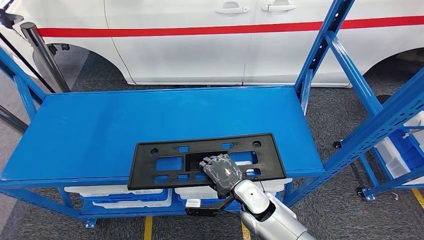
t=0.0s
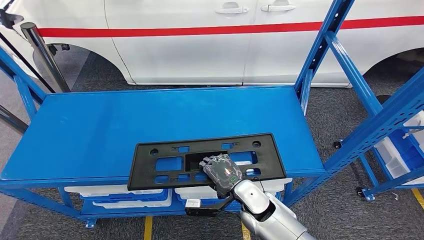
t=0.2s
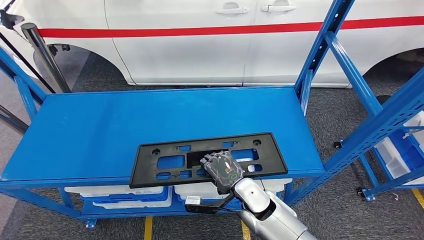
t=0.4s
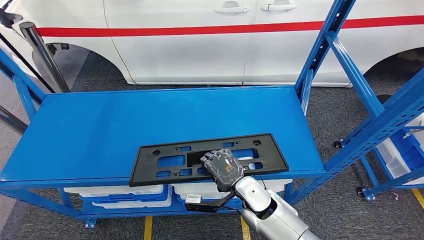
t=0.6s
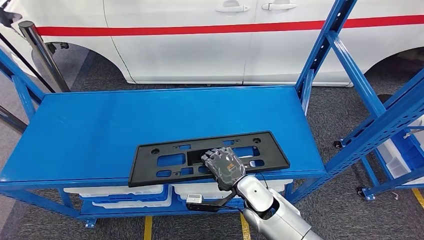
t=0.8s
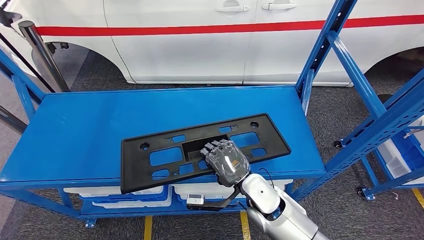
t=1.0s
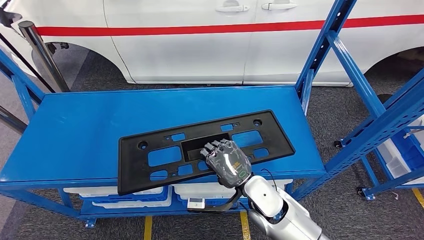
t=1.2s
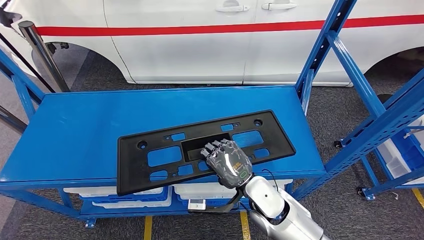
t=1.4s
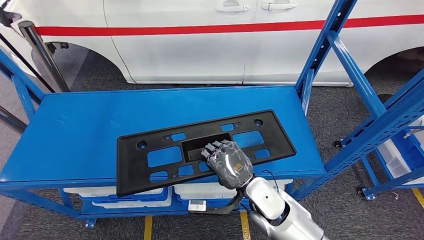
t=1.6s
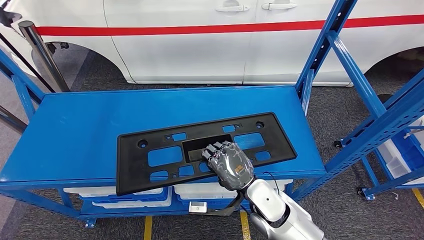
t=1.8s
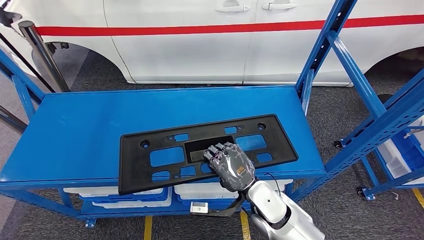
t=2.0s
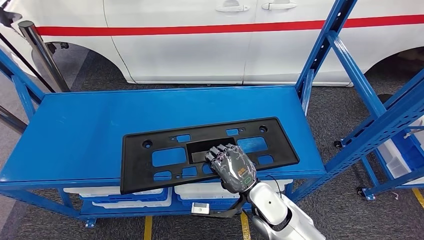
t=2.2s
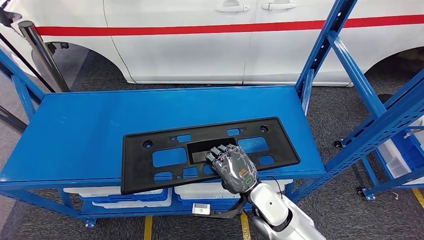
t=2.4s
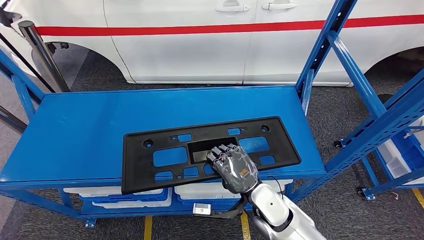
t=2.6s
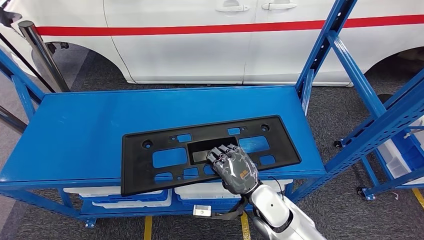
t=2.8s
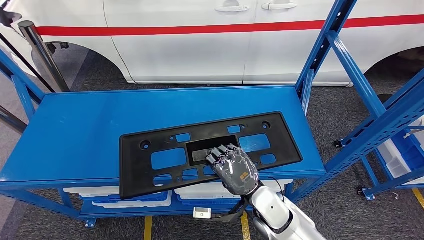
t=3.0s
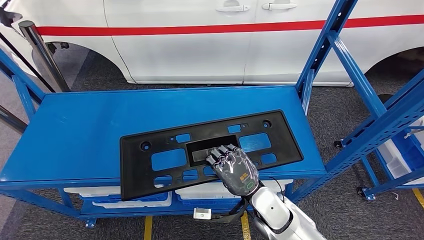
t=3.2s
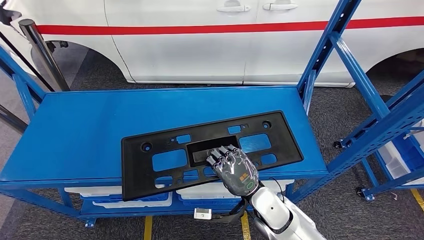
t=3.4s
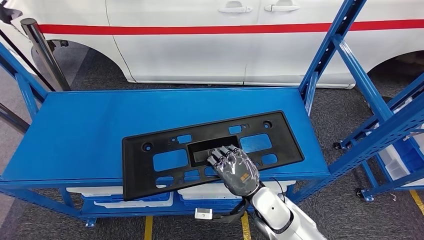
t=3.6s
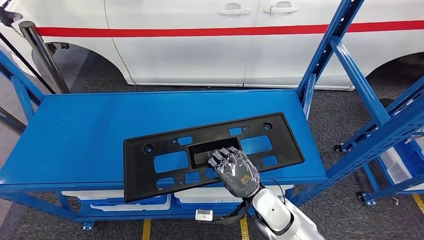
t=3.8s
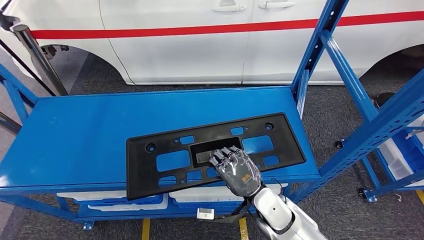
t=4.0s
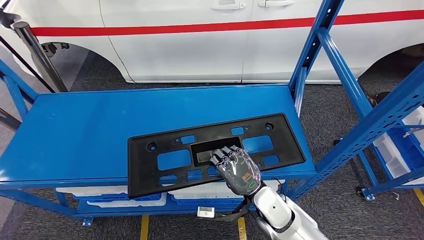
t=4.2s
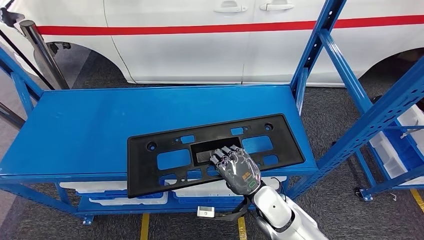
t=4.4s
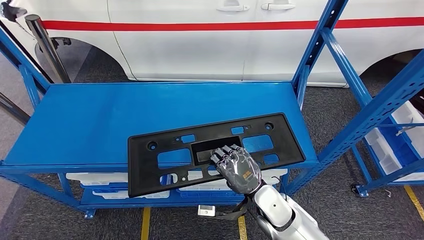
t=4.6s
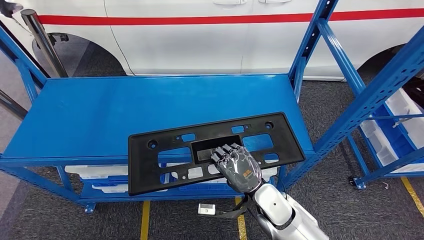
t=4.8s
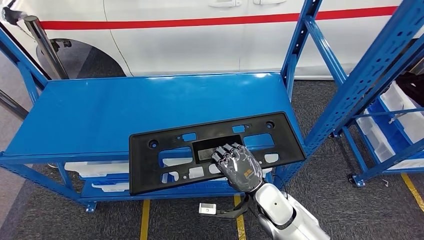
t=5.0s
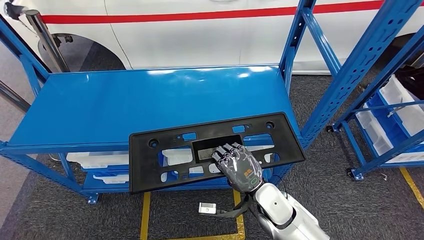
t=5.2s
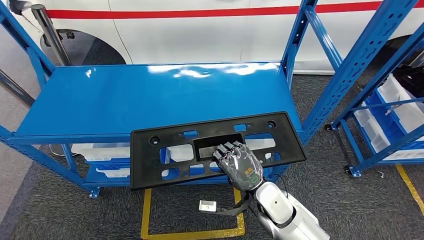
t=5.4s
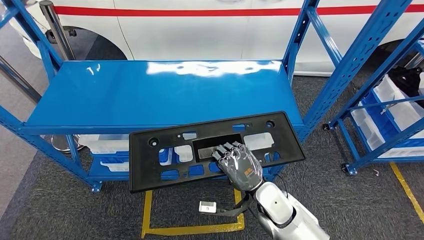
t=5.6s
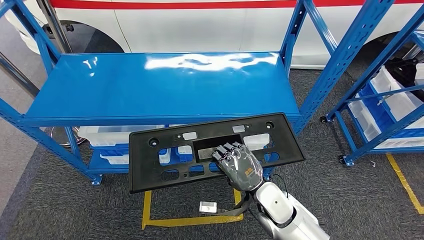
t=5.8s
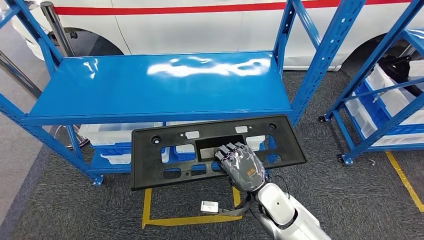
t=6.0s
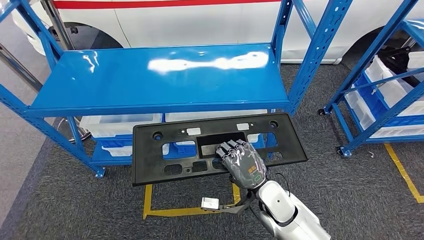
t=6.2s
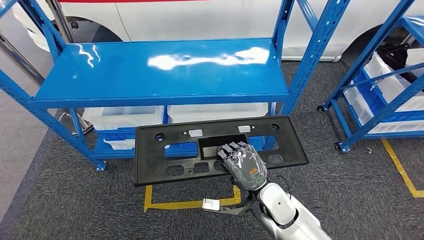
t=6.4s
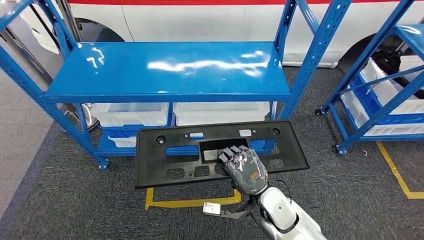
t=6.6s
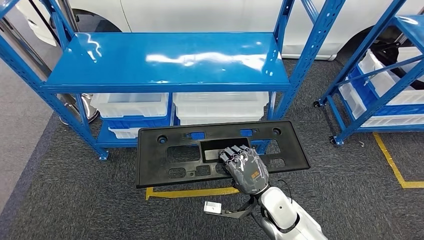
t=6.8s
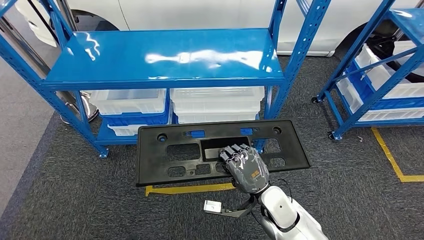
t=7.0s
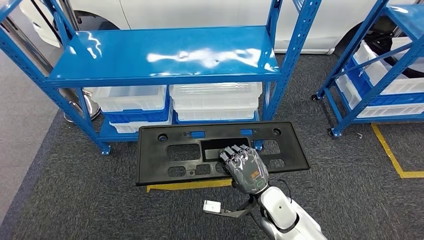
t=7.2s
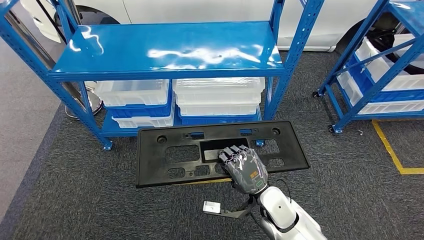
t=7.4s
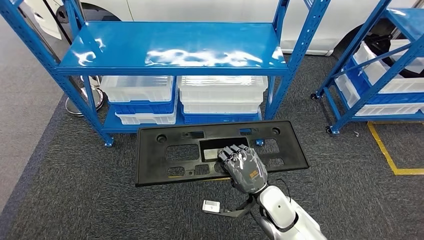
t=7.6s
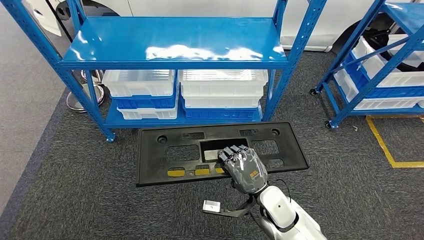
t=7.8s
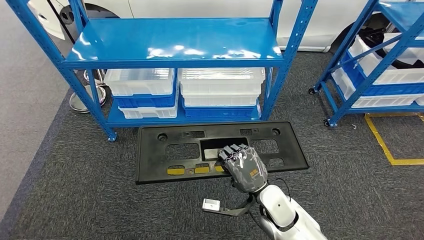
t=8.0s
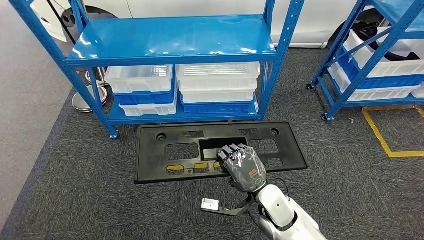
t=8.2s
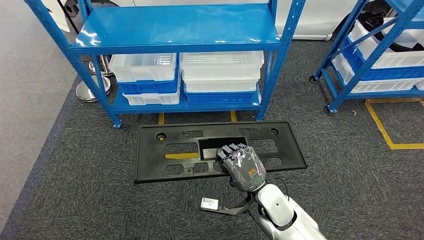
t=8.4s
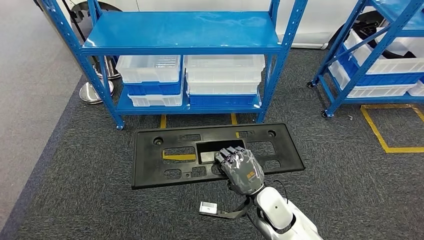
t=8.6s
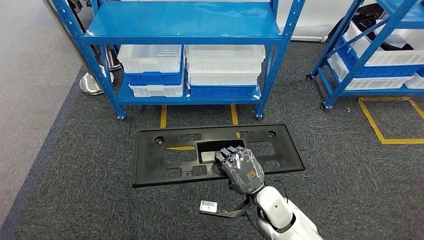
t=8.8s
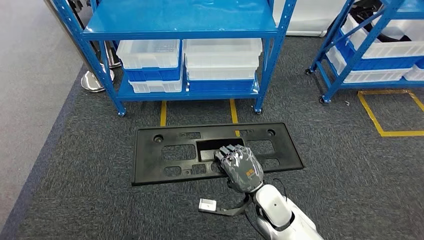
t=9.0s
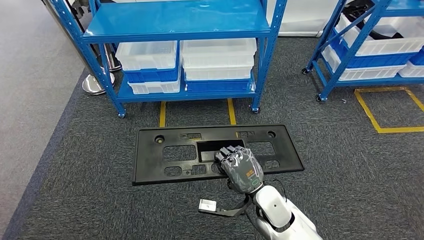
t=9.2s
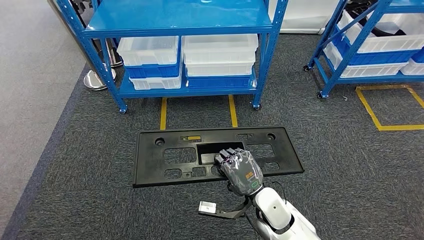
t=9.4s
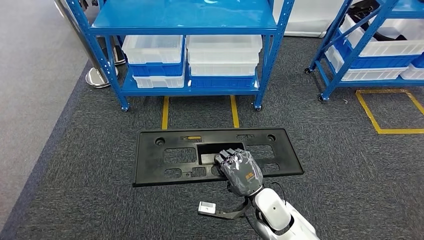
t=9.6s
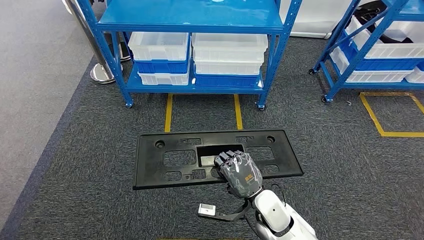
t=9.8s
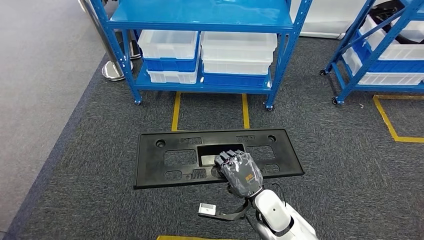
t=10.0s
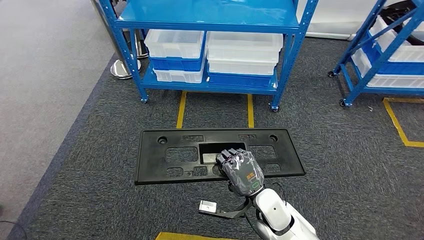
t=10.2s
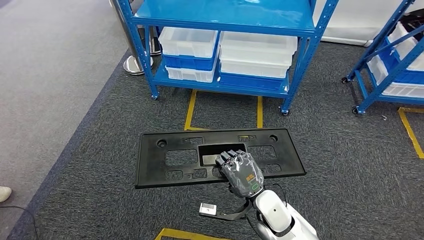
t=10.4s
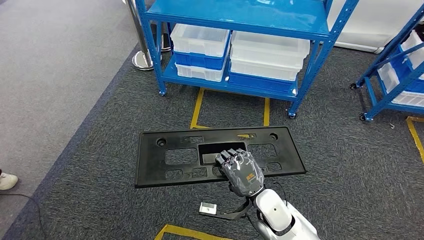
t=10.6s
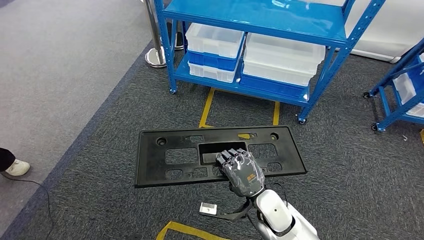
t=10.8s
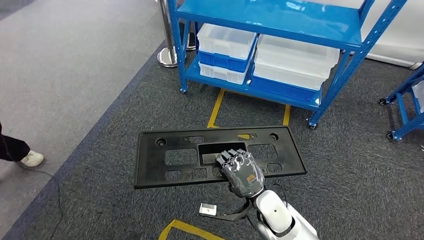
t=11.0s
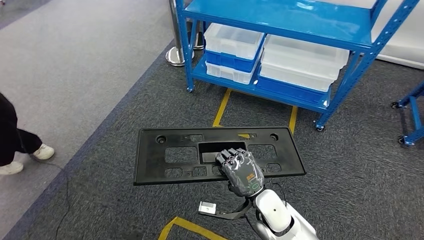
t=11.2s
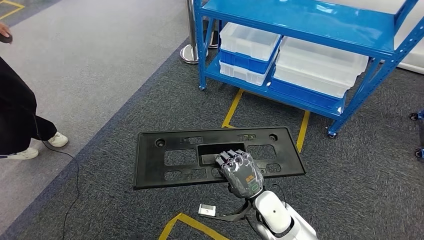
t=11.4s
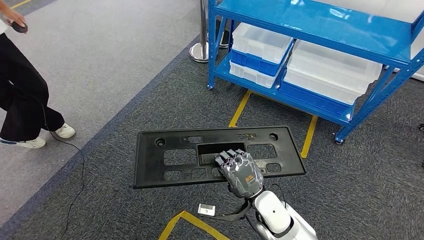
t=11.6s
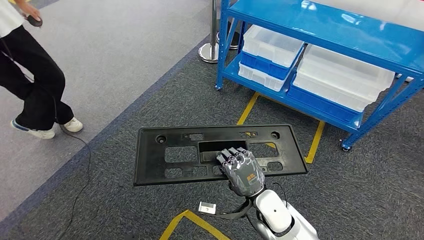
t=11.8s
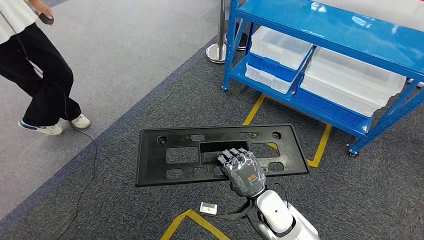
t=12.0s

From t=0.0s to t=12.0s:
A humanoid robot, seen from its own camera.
From t=0.0s to t=1.6s: The right hand travels upward by about 5 cm.
From t=1.6s to t=3.0s: The hands move only a little.
From t=3.0s to t=4.4s: Both hands stay put.

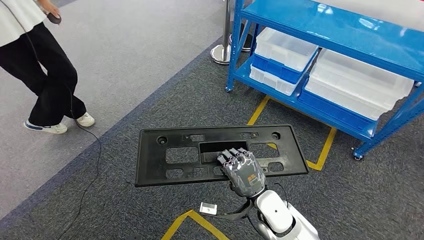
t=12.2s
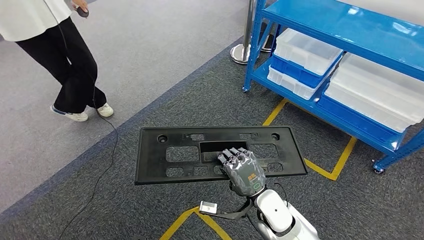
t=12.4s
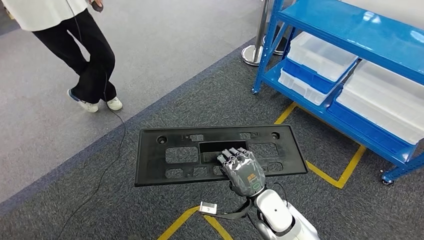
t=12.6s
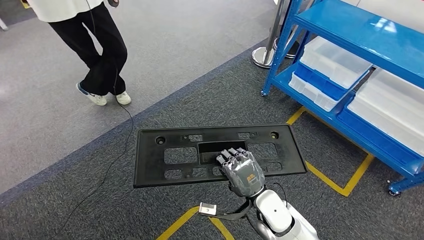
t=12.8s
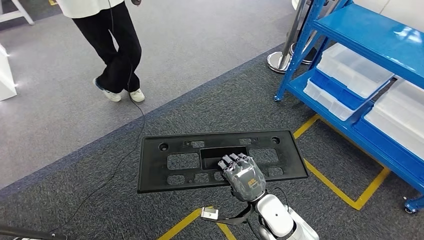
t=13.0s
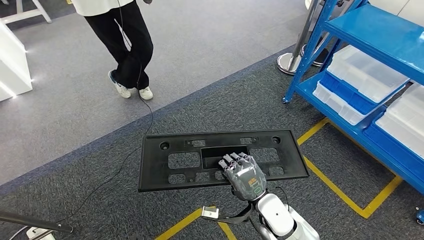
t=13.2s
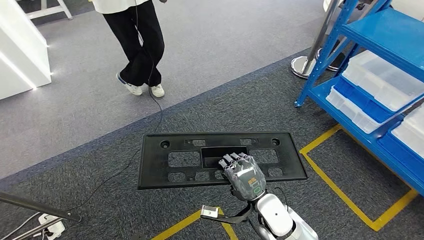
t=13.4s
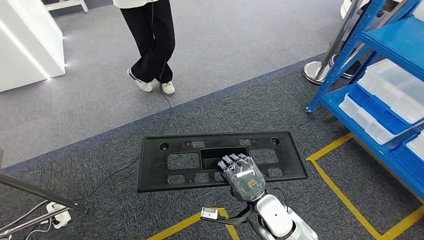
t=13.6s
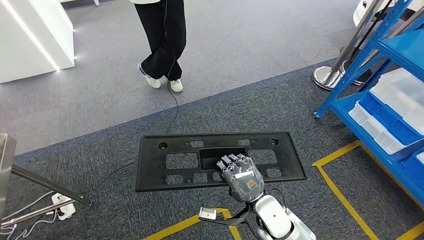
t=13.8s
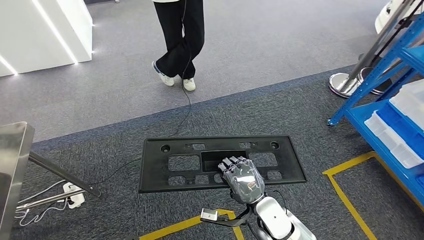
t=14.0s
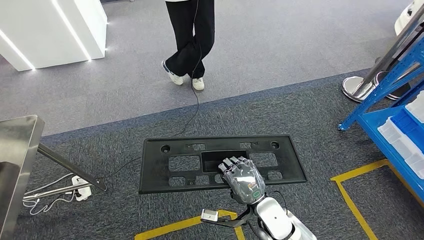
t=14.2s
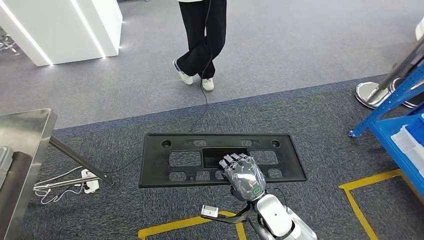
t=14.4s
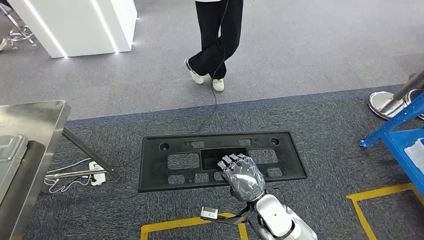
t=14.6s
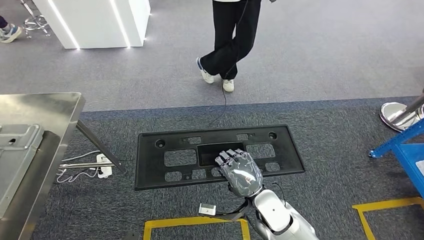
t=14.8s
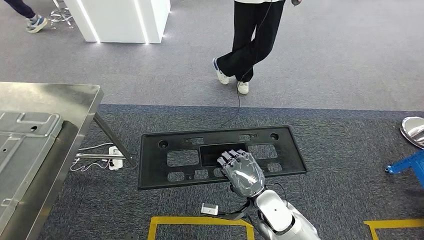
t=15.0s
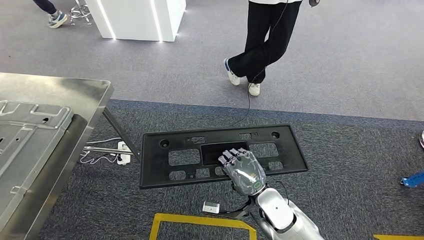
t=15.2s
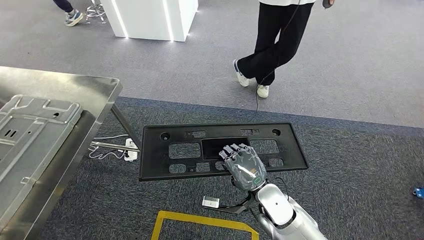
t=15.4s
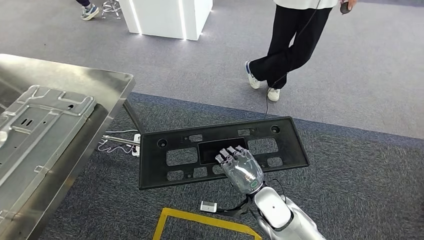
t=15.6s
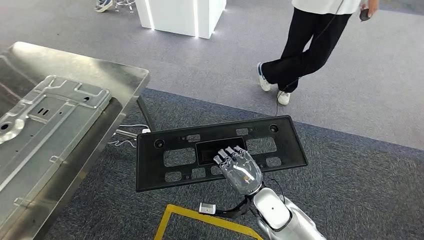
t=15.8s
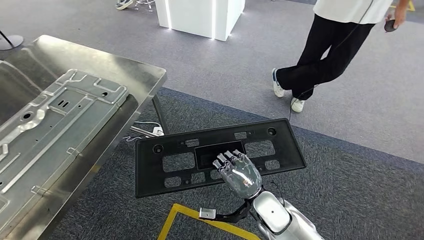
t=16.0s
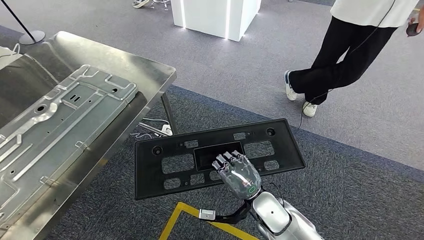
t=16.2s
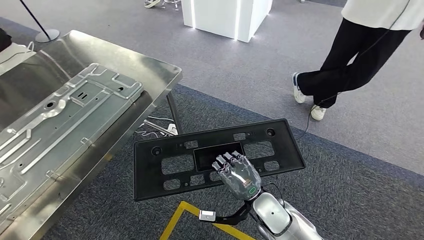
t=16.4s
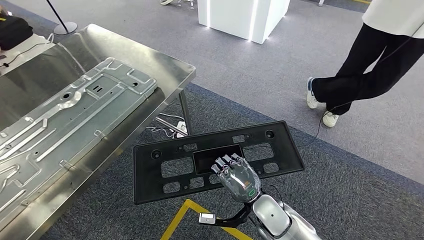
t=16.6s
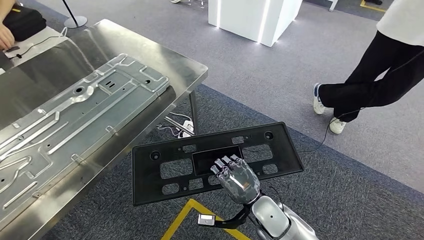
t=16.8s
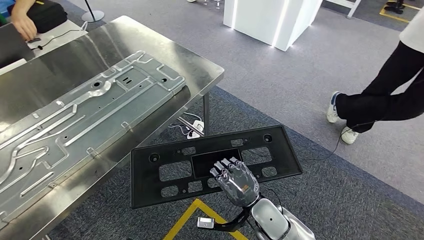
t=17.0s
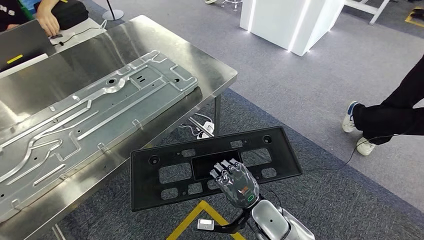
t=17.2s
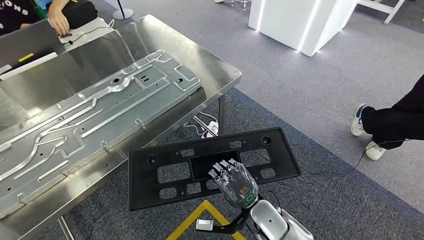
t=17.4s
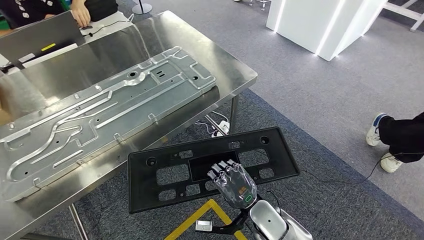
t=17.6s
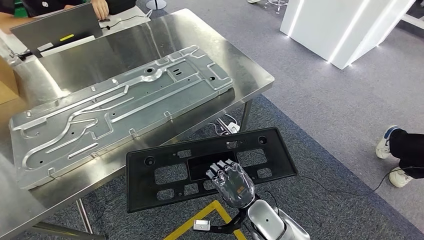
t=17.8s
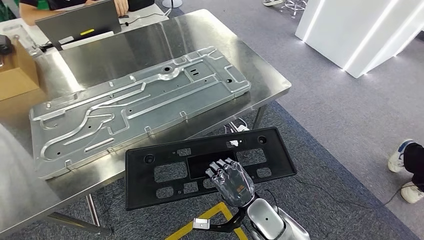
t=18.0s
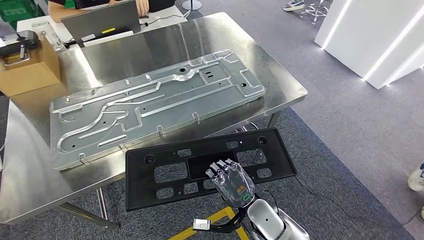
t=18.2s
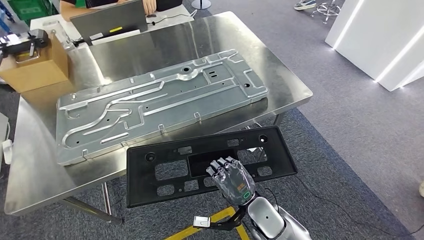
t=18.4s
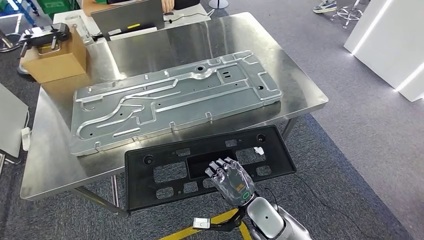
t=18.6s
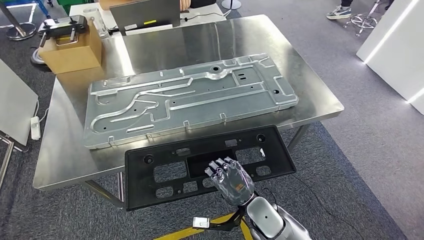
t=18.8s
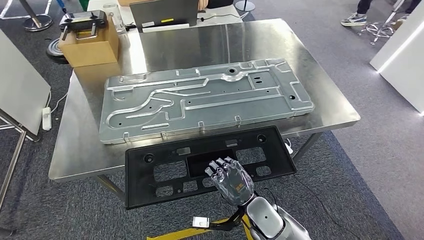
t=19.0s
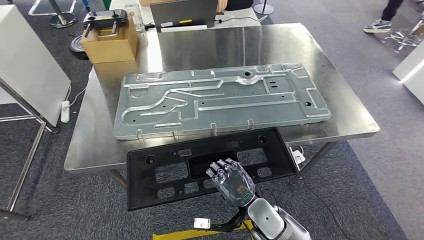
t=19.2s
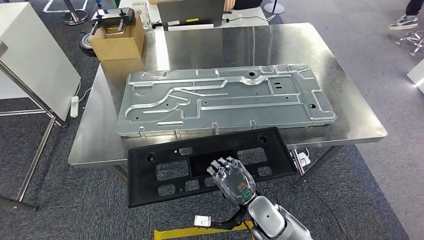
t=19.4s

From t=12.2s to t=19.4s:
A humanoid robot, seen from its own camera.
Step, from t=12.2s to t=18.4s: Move the large parts to the workbench.
